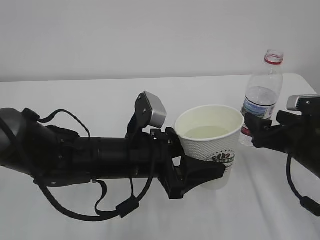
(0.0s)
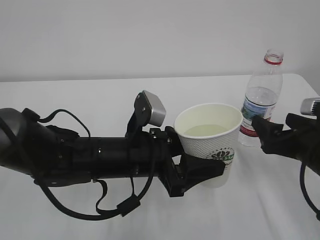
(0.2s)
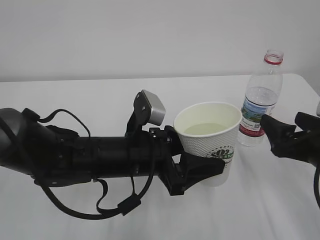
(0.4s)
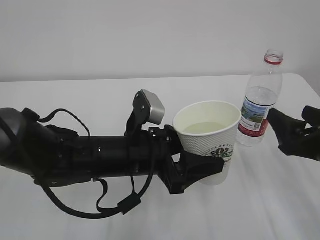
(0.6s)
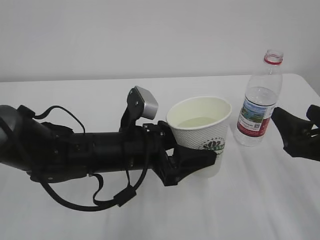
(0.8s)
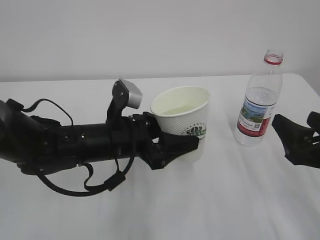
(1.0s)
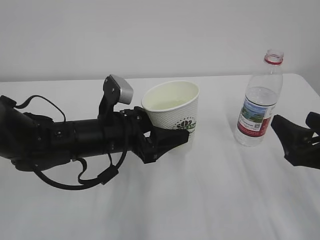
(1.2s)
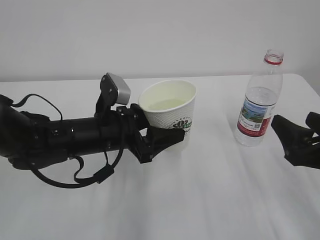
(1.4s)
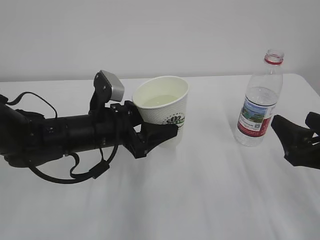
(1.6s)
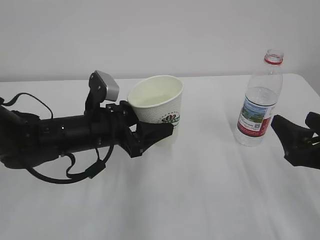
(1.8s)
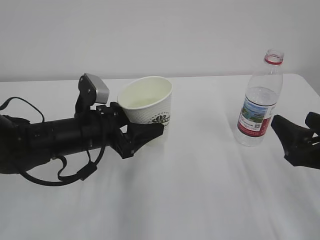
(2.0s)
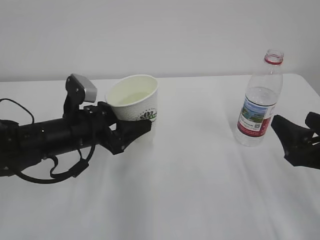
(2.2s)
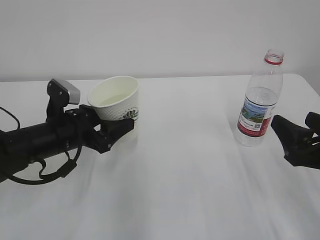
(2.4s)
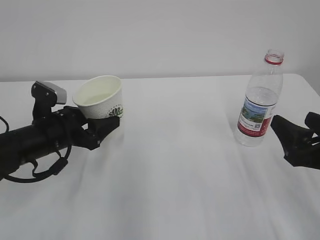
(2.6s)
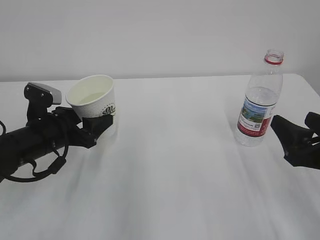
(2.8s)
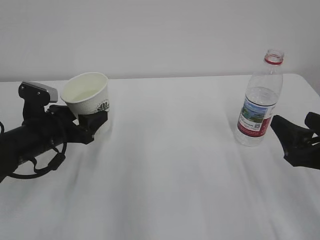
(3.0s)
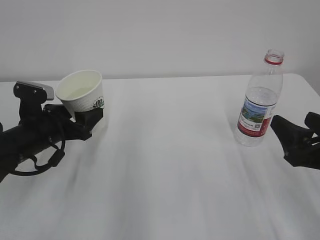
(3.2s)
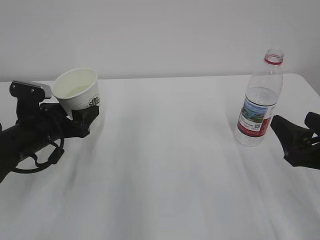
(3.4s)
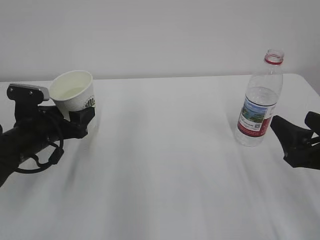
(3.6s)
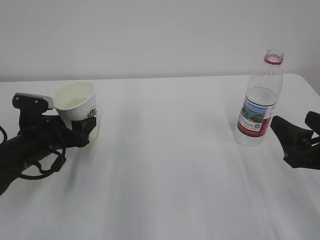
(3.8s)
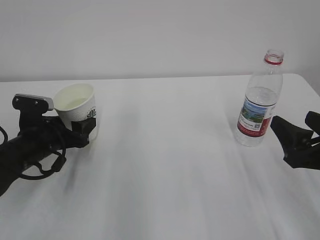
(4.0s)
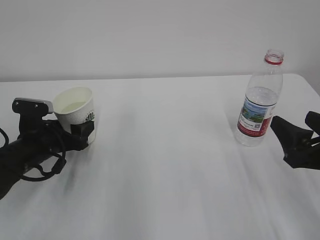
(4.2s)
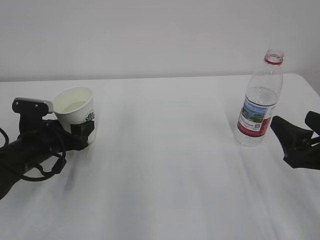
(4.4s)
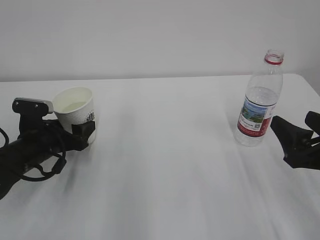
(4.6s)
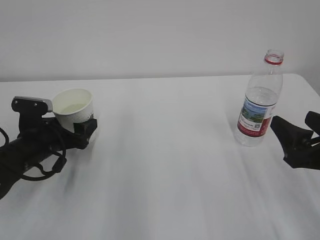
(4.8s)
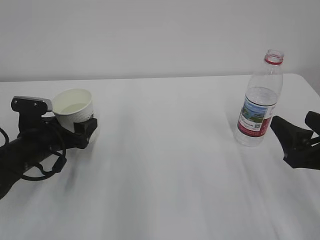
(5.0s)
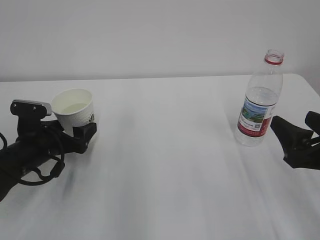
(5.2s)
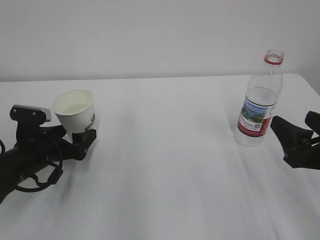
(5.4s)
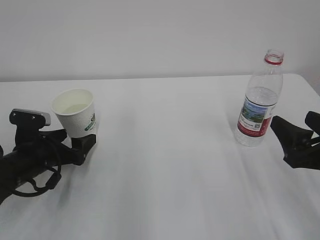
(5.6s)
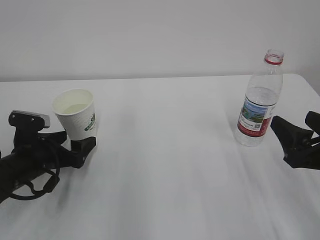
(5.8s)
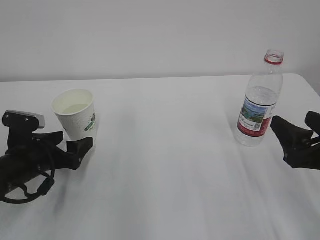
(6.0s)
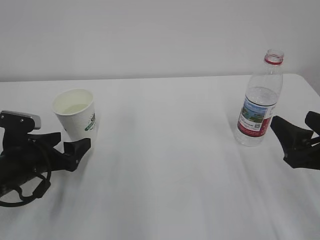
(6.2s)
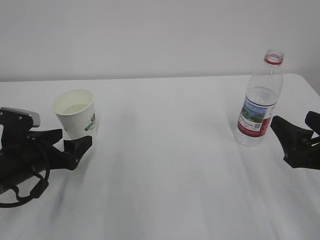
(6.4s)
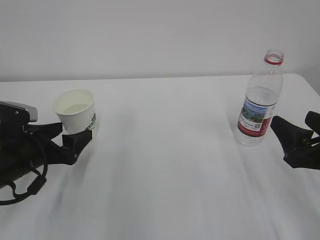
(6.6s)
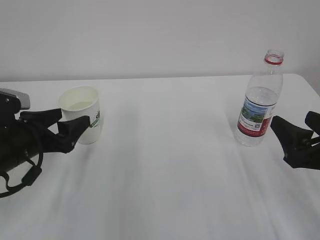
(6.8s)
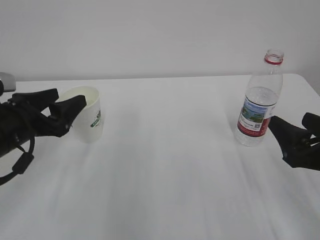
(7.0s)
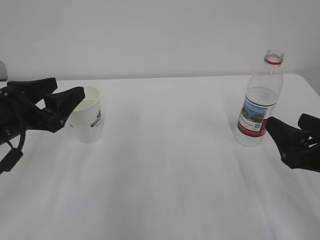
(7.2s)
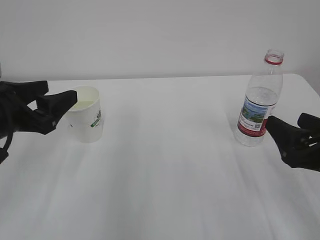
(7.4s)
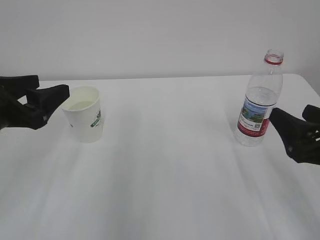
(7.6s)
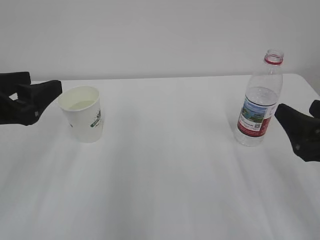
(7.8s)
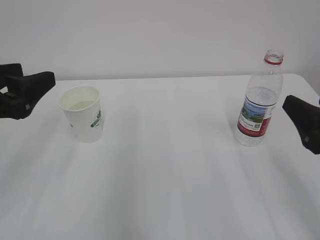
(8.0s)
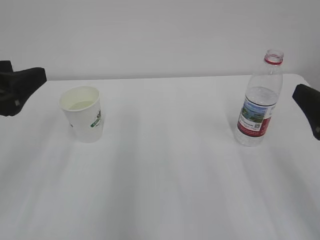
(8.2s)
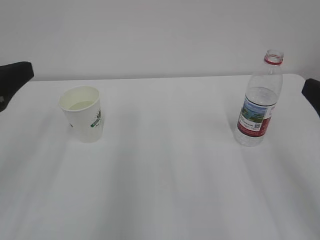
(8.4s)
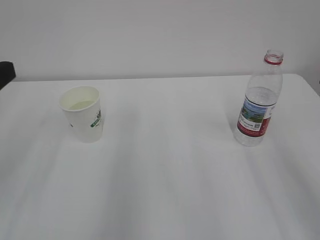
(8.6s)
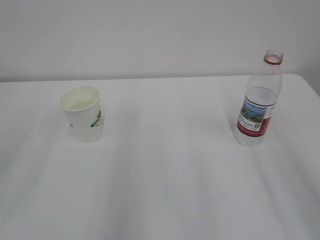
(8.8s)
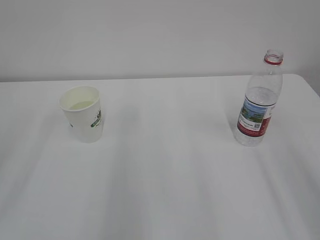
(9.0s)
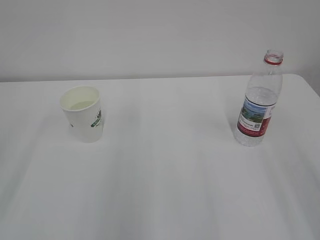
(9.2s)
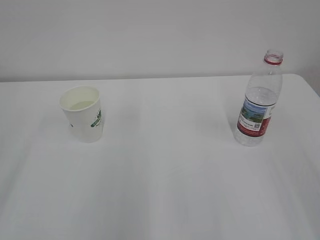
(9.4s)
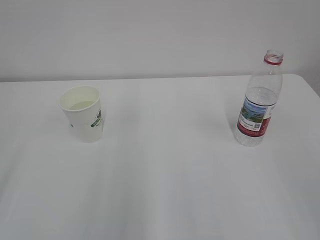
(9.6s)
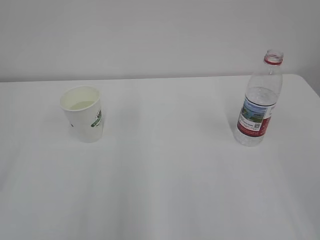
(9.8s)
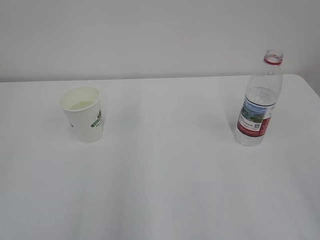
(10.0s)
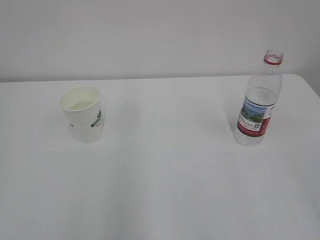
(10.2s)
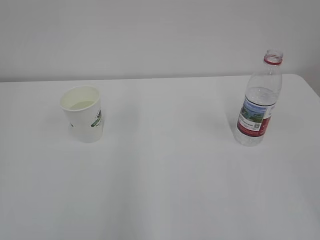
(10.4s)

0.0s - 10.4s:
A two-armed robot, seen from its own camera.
0.0s - 1.4s: The left gripper is displaced to the left by about 5 cm. Meanwhile the right gripper heads backward, covering roughly 10 cm, and closes up.
1.4s - 3.0s: The left gripper is displaced to the left by approximately 10 cm.
3.0s - 4.4s: The grippers make only small movements.
4.4s - 6.0s: The left gripper opens.
6.0s - 7.4s: The left gripper moves upward, about 15 cm, and closes.
7.4s - 9.0s: The left gripper heads backward, upward and to the left, covering roughly 15 cm, while the right gripper goes roughly 15 cm upward and backward.
